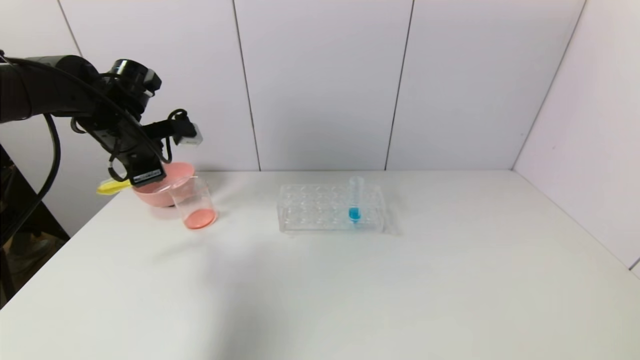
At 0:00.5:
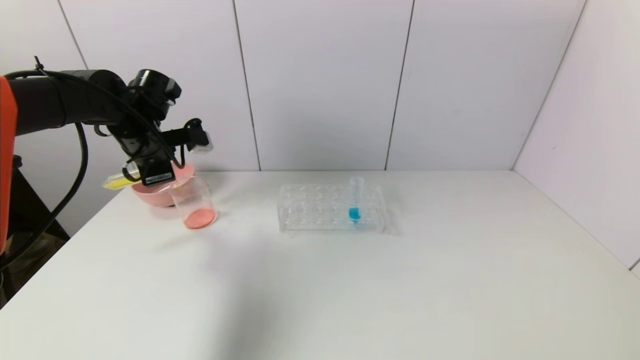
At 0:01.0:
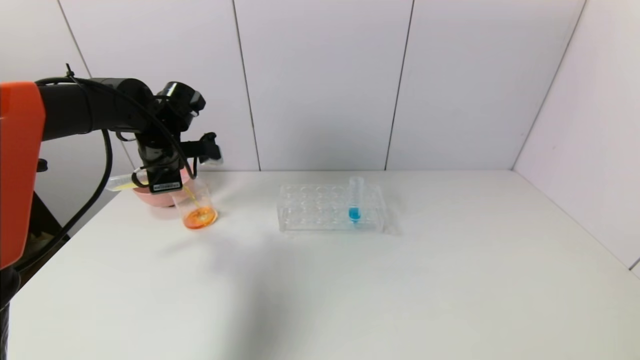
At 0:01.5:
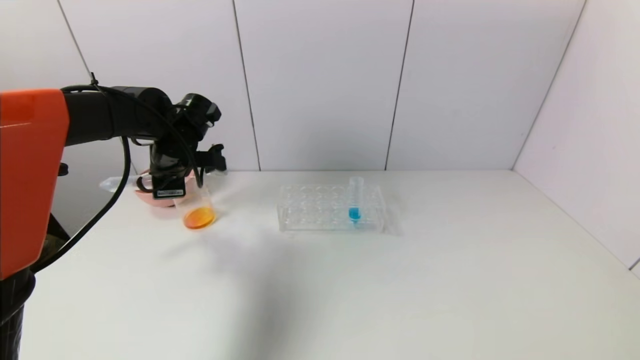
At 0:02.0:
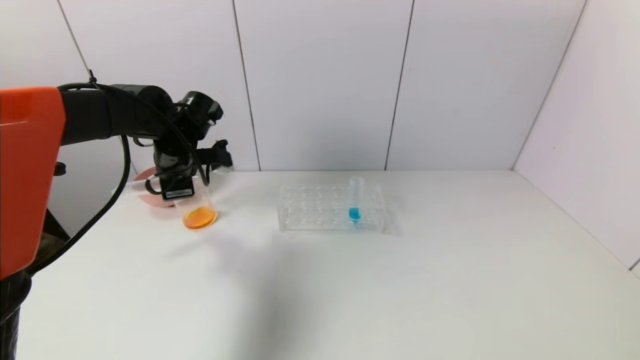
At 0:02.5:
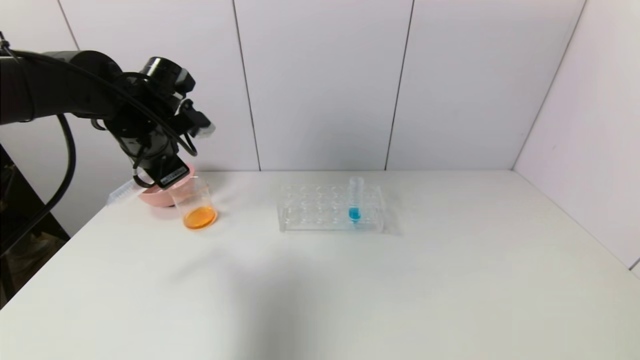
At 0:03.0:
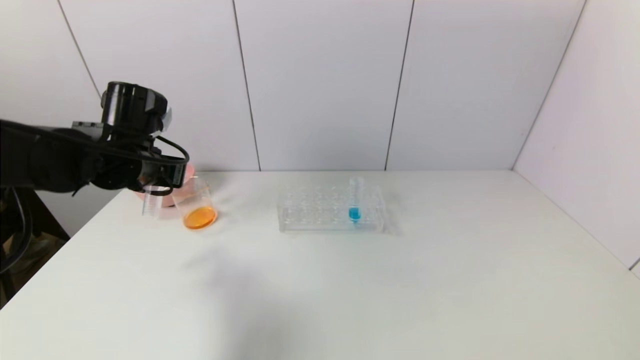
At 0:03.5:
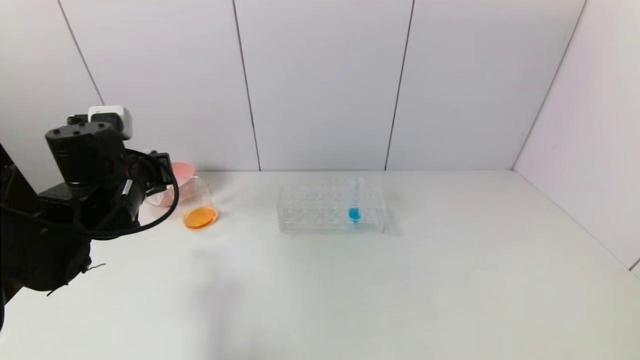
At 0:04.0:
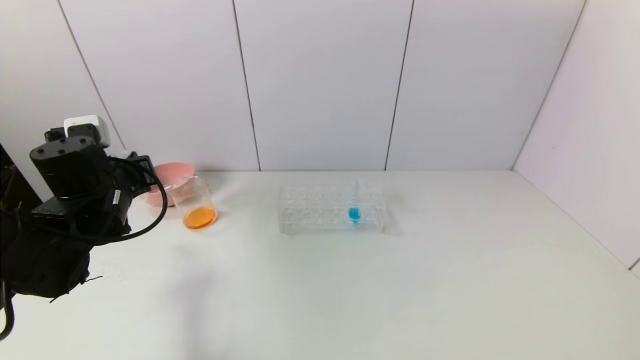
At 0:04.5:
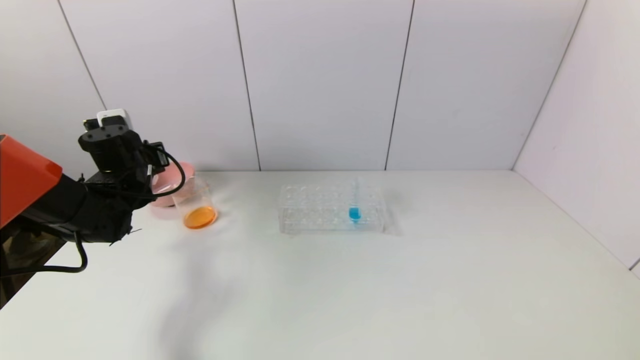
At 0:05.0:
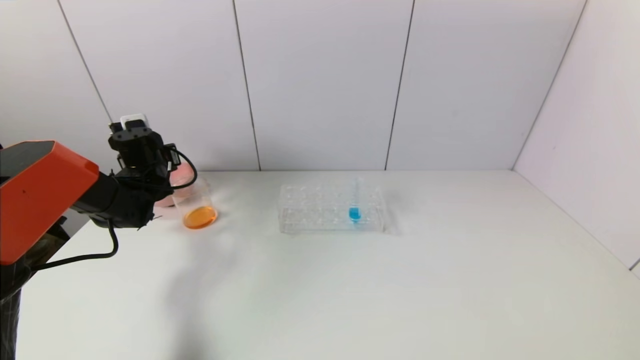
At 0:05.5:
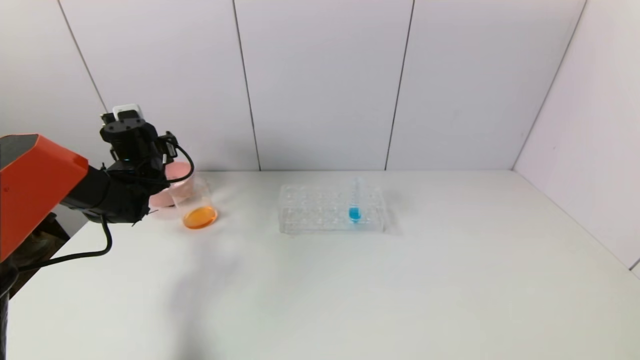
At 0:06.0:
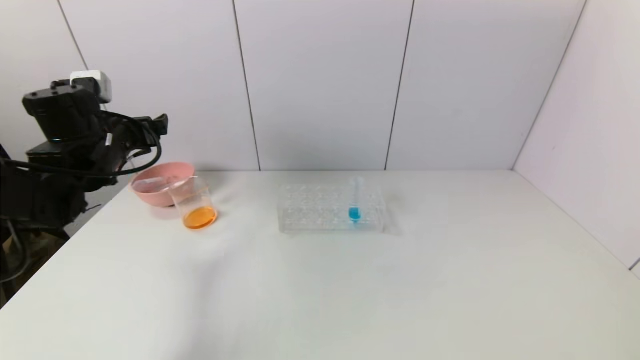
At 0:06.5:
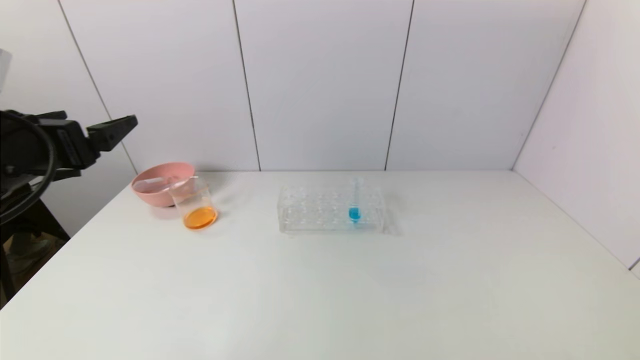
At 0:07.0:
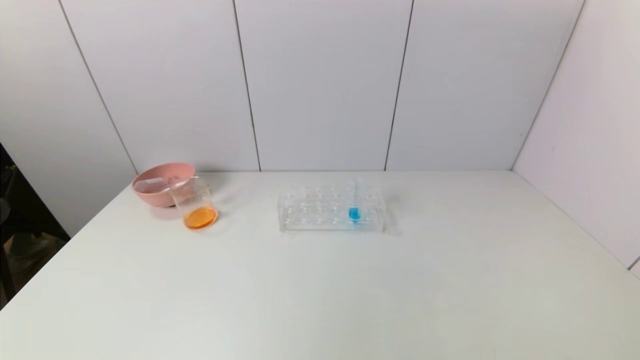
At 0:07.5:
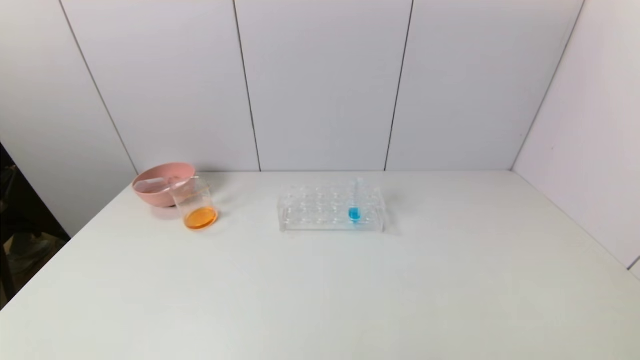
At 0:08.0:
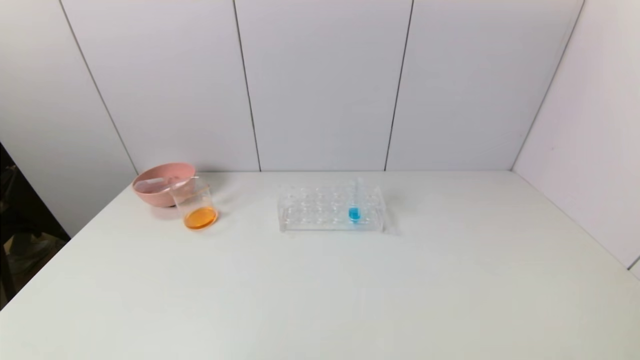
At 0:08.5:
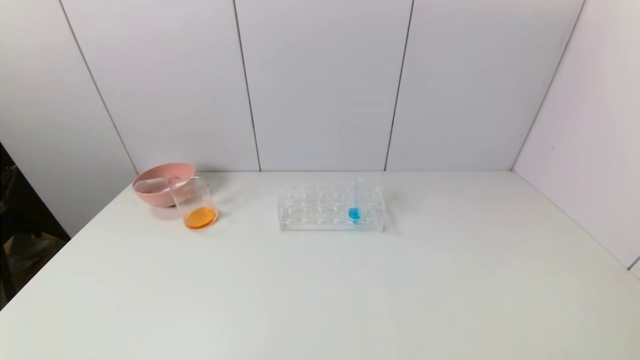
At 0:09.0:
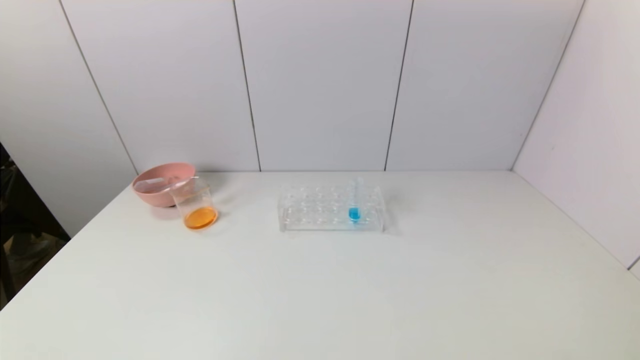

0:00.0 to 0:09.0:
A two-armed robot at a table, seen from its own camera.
Task of the whole recording: pick up the test tube with yellow pigment and the test tube with red pigment by grippers and pour them into the beaker.
Step, 0:02.0 to 0:05.0: Place the test tube into the pink bowl with the left gripper.
0:00.0 to 0:02.0: The left gripper is displaced to the right by some 5 cm.
0:02.0 to 0:04.5: The left gripper heads to the left and downward, covering about 10 cm, and travels backward and back again, some 10 cm each way.
0:04.5 to 0:07.0: The left gripper travels backward by roughly 40 cm, and opens.
